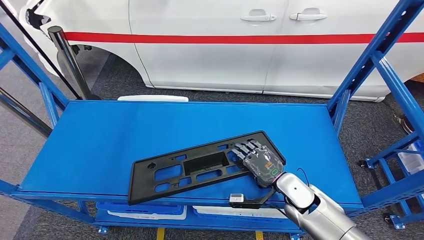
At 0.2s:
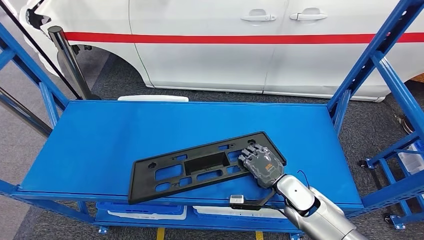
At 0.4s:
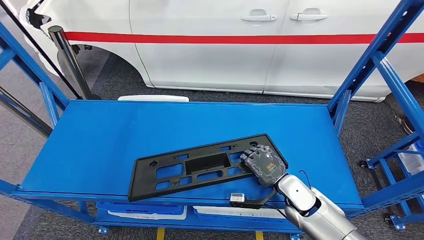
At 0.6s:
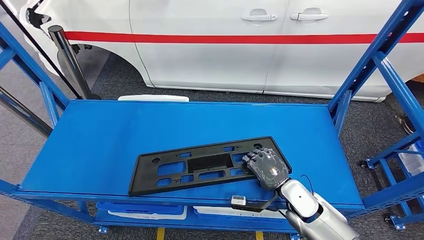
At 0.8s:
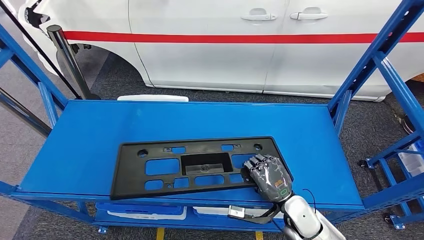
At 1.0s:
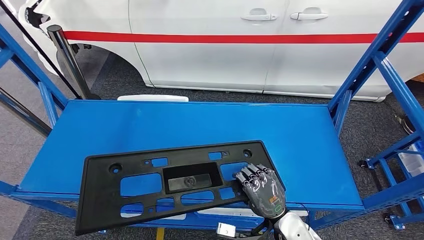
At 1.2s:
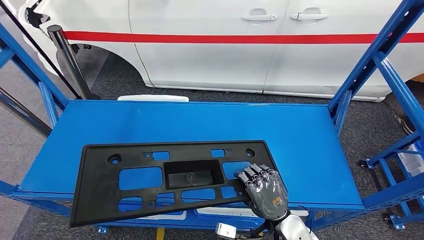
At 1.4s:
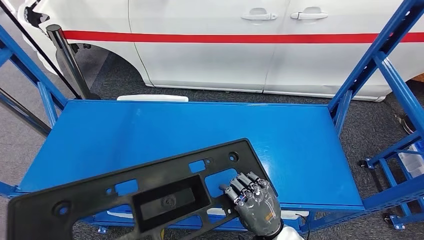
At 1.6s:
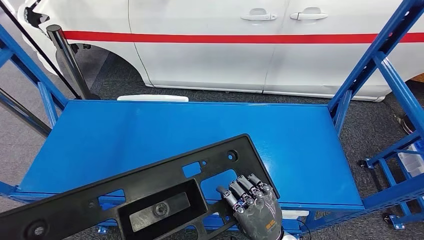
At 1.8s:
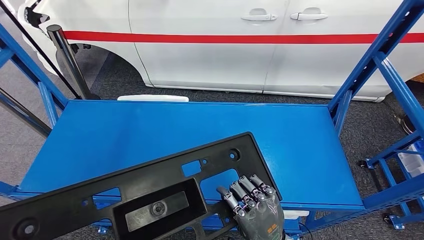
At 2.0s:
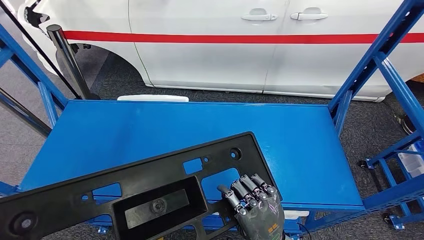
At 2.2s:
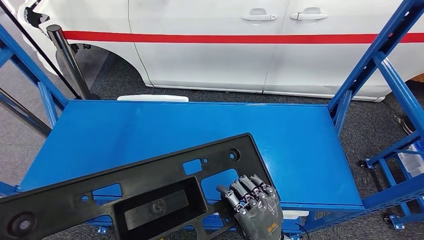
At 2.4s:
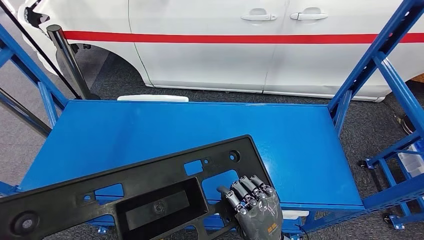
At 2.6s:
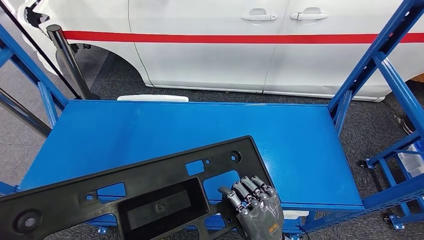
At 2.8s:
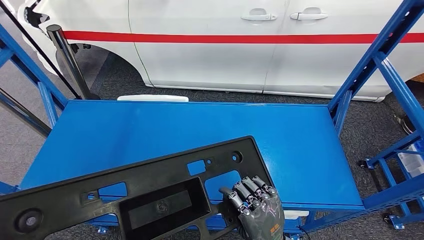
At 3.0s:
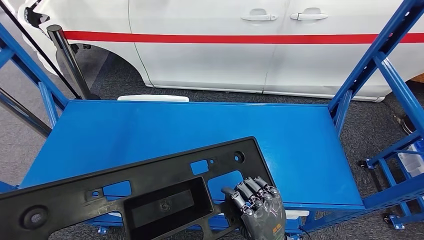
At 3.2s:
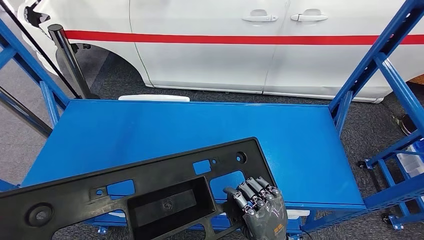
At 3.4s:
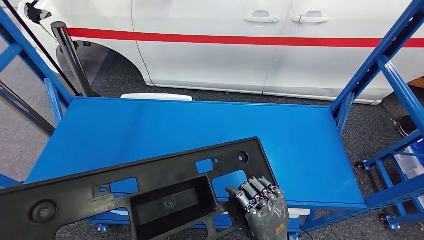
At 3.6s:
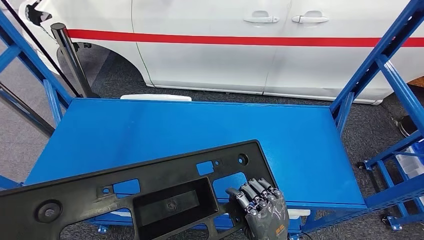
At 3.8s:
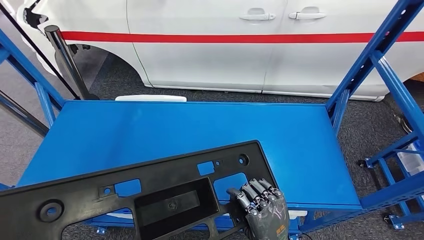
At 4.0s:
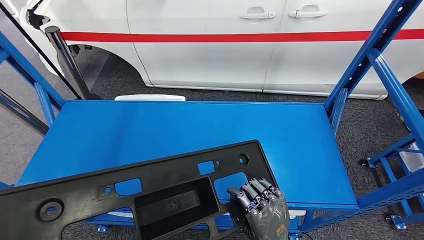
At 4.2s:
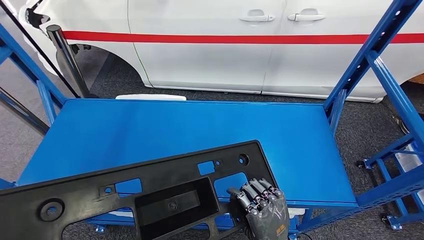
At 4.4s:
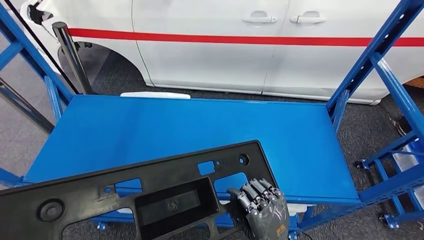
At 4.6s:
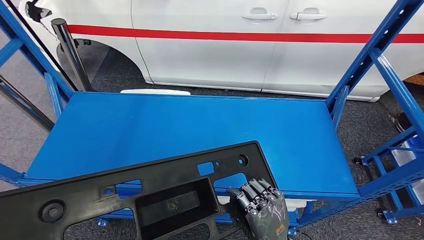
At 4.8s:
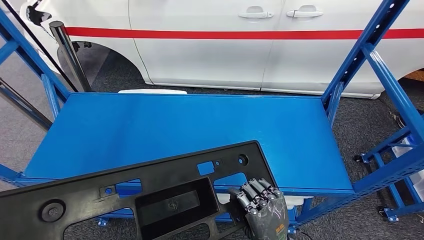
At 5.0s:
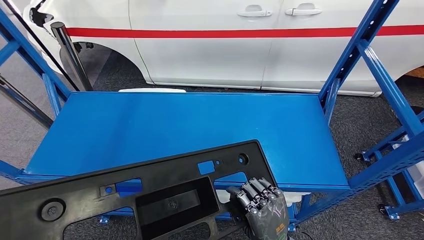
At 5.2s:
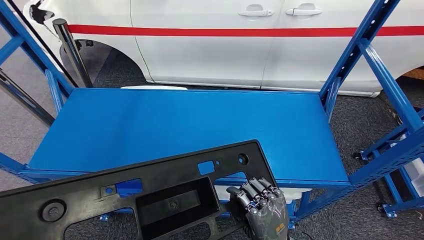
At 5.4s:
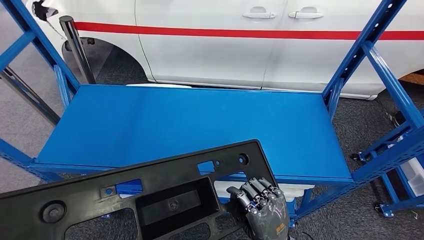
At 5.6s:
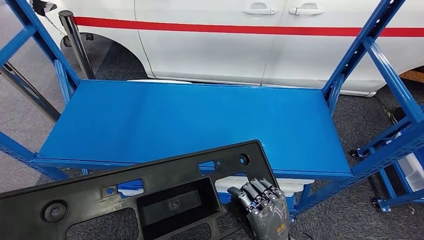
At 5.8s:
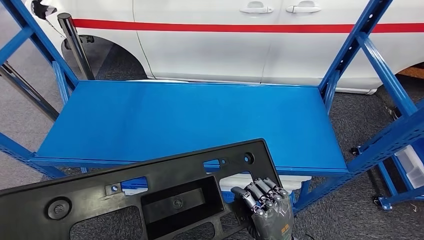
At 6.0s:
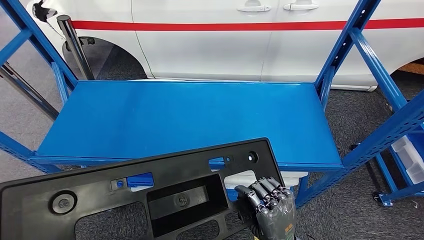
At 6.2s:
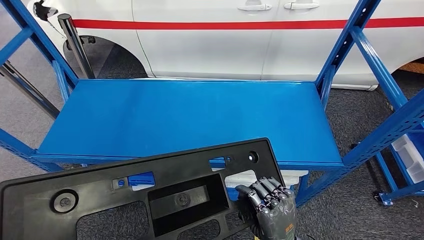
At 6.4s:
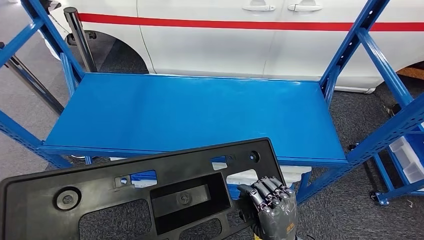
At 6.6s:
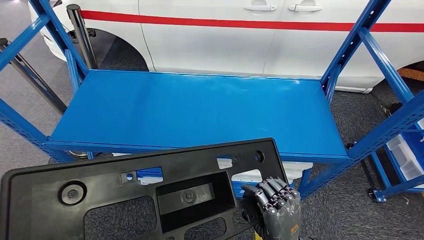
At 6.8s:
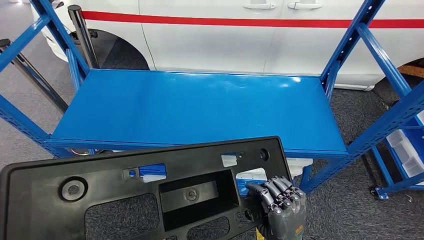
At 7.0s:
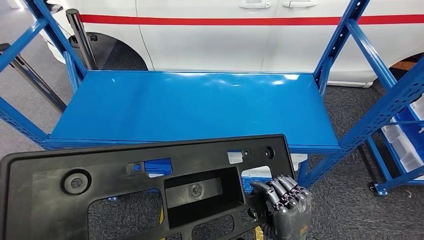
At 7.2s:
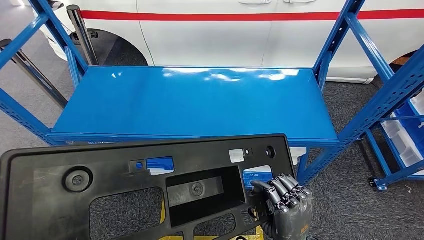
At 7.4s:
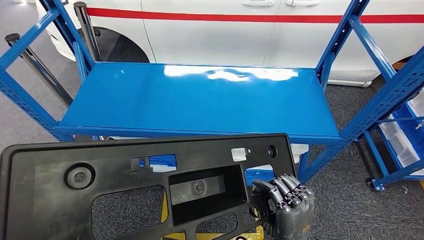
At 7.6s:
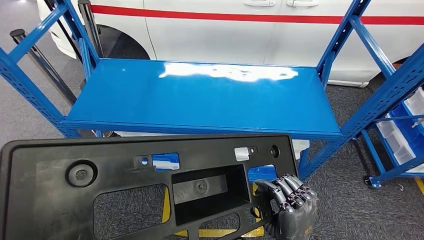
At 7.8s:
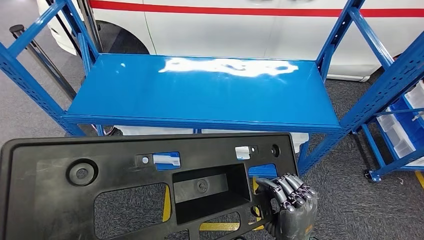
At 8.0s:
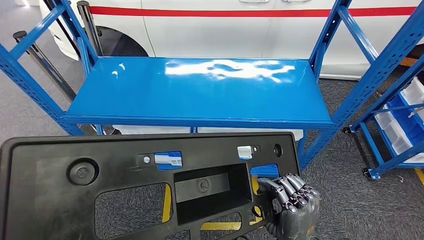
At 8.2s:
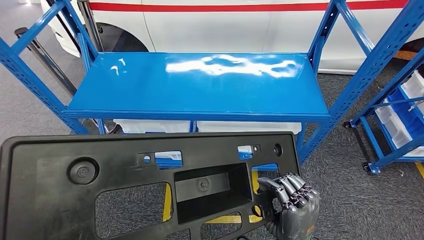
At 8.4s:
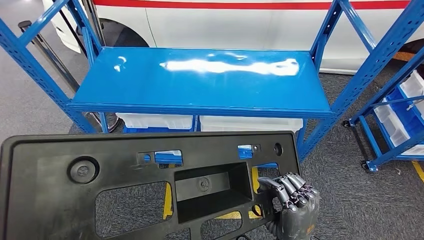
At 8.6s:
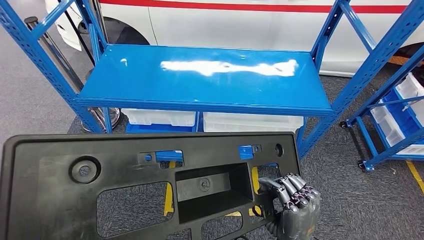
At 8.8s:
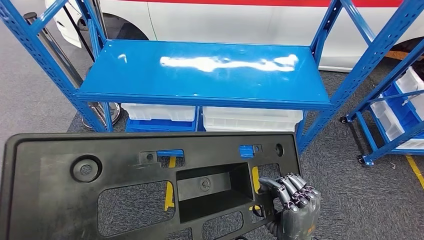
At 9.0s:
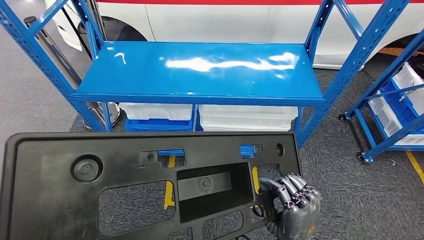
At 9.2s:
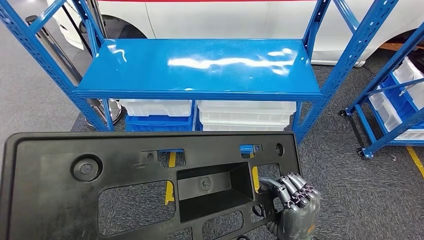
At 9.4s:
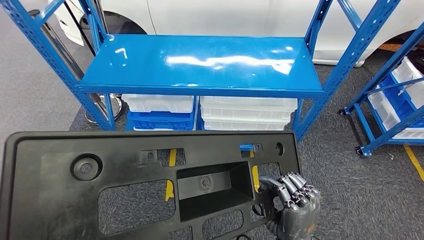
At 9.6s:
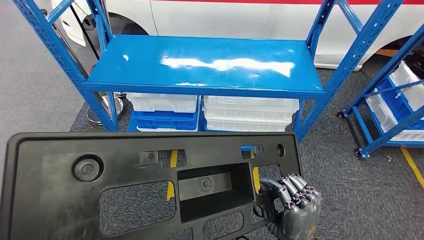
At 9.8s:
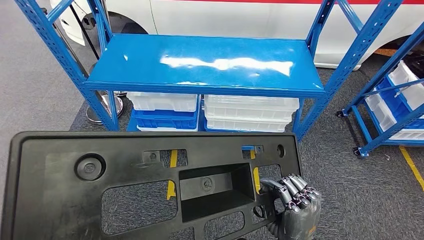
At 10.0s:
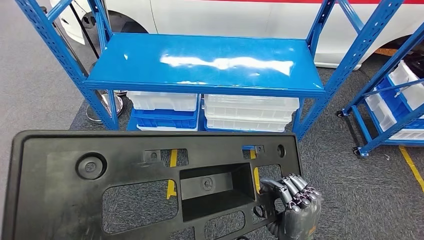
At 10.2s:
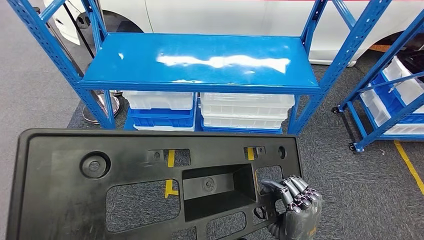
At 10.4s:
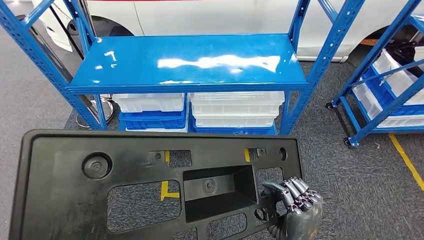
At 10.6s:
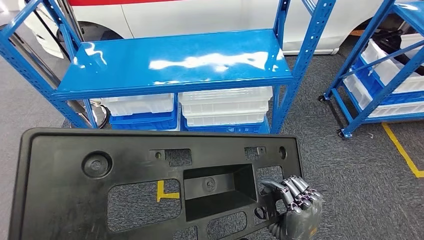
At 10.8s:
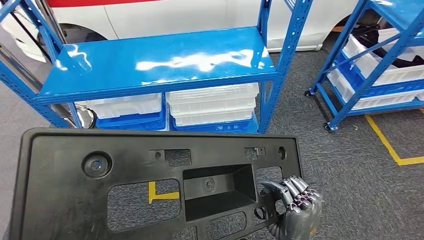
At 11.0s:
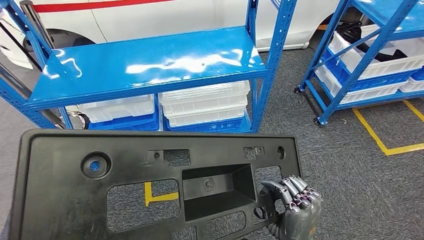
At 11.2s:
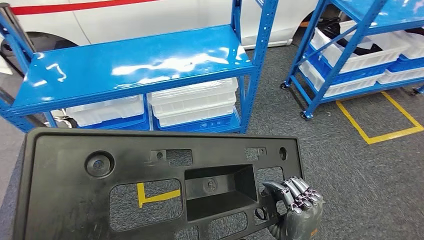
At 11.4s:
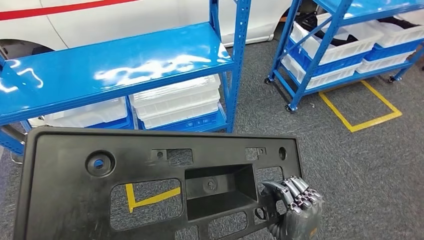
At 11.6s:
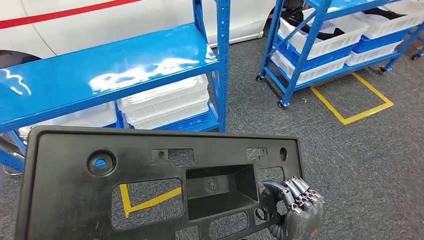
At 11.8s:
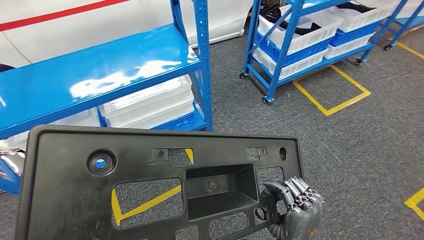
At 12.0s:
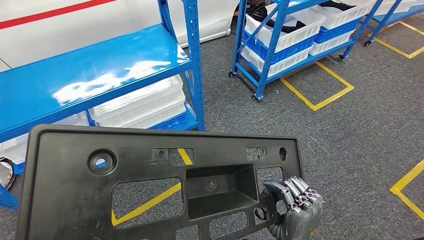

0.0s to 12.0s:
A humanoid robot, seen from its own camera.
Step, 0.0s to 2.0s: Pick up the large material from the shelf.
1.6s to 3.0s: The hands move only a little.

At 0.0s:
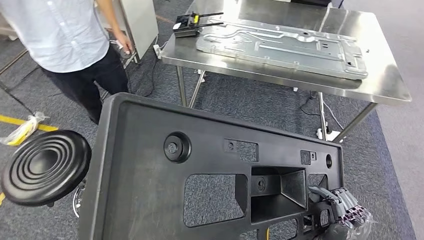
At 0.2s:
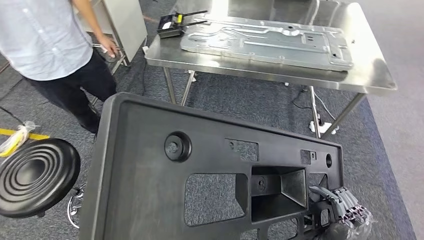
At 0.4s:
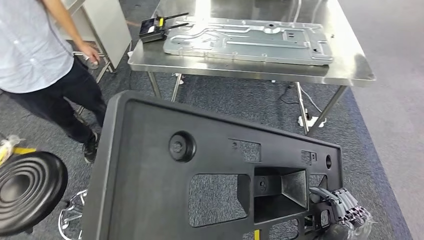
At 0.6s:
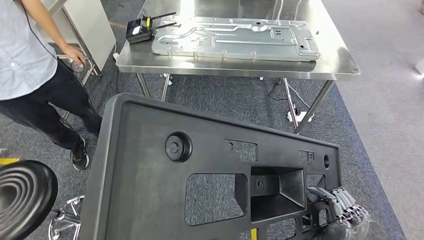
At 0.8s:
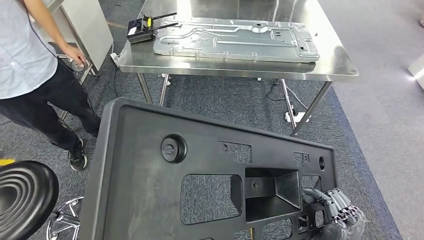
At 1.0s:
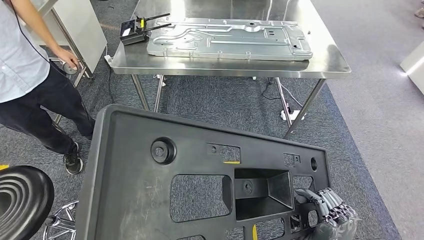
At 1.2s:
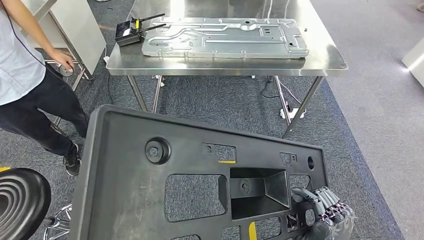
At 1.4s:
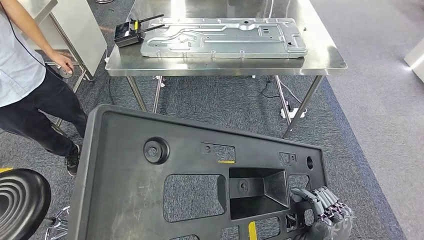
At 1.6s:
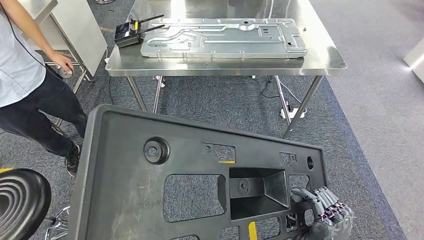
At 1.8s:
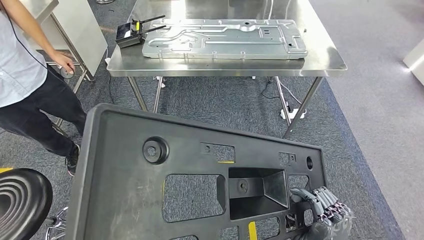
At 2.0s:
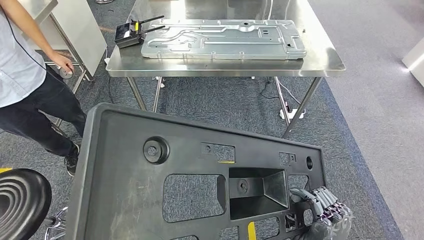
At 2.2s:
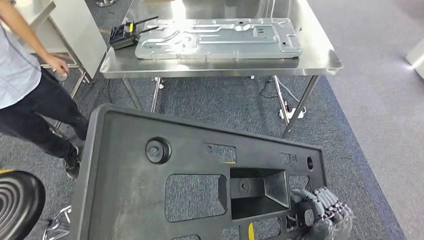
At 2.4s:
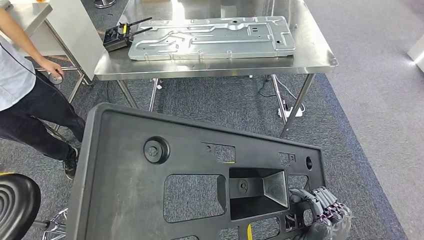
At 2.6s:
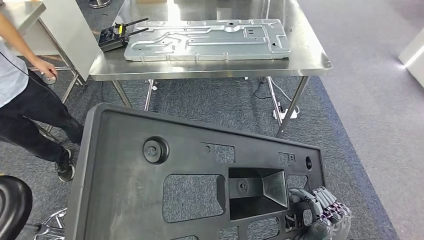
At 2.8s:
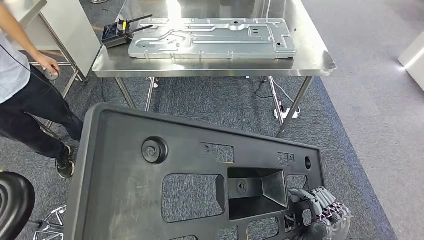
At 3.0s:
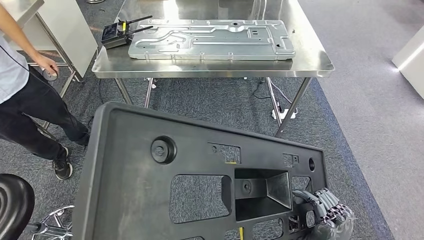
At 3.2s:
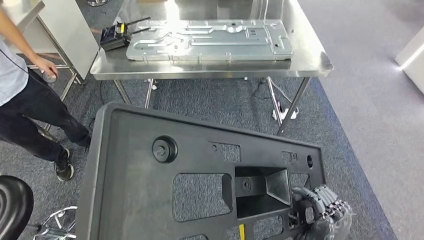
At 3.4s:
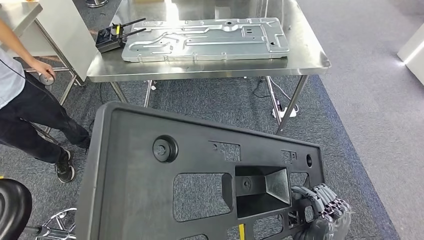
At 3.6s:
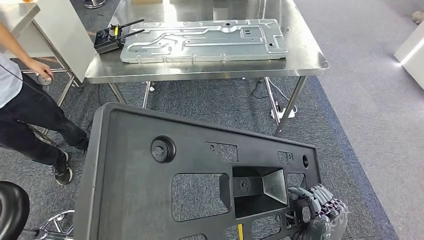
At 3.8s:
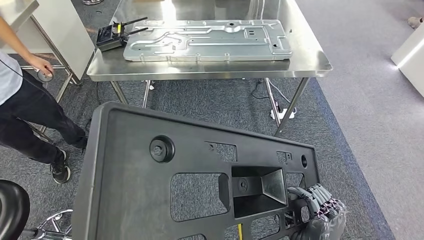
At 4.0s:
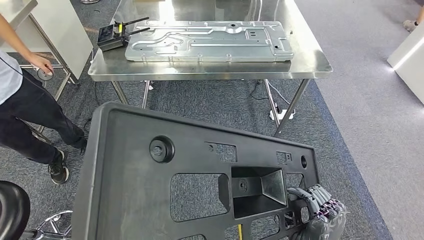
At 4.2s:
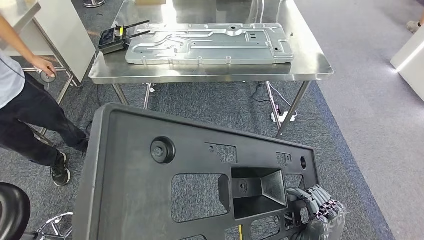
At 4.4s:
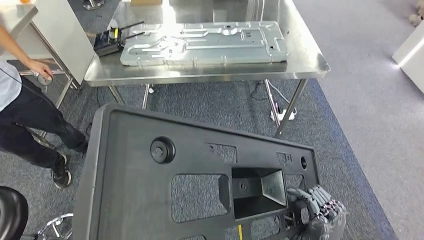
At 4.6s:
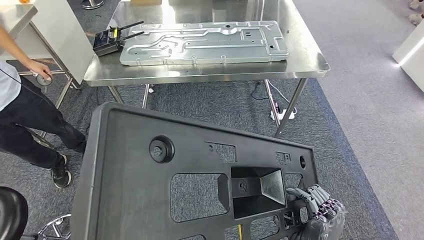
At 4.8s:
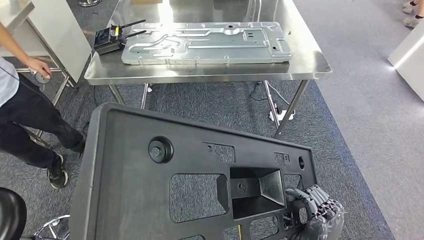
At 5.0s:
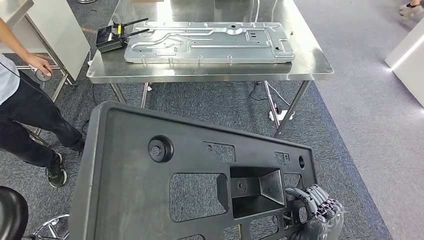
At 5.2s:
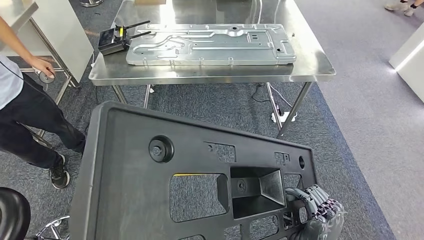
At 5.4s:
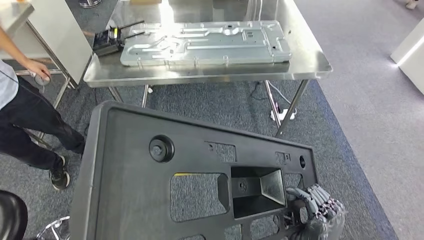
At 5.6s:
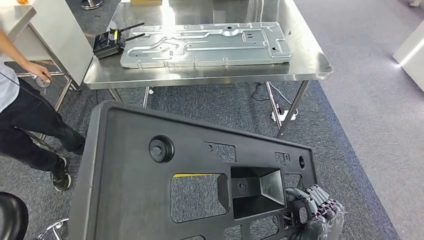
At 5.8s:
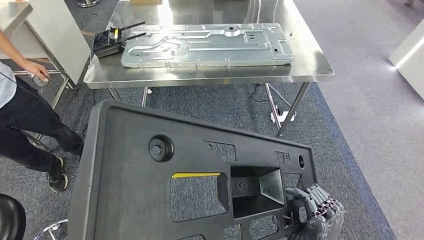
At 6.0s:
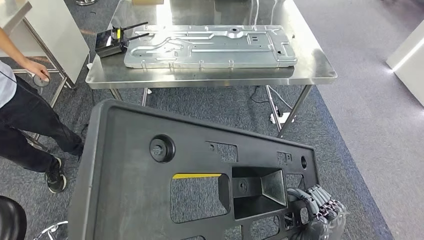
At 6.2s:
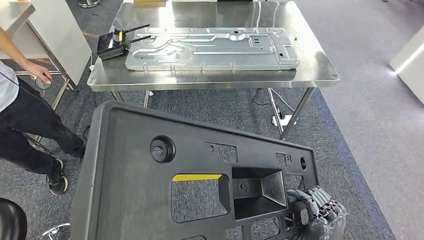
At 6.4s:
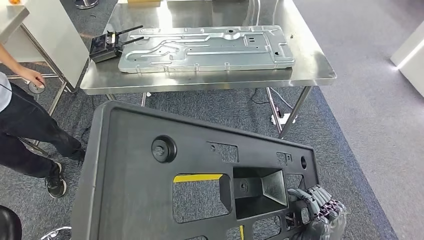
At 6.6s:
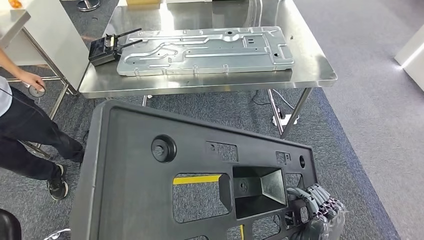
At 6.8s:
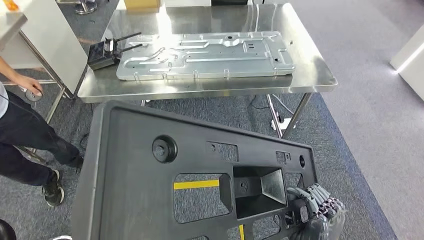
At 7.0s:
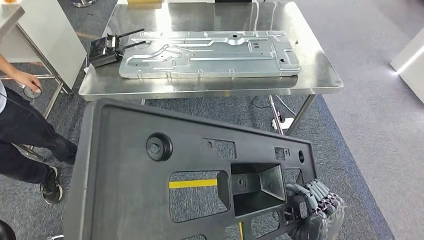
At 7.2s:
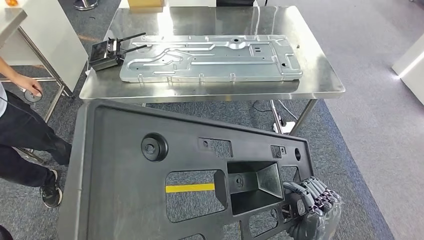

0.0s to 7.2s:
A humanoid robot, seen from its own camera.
4.4s to 5.8s: Both hands stay about where they are.
